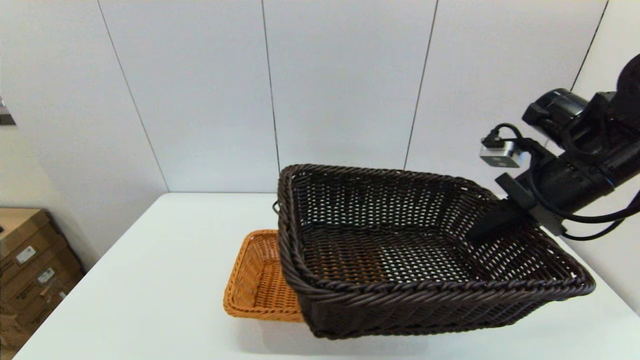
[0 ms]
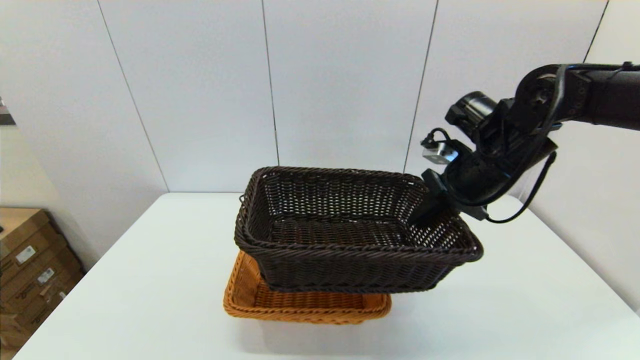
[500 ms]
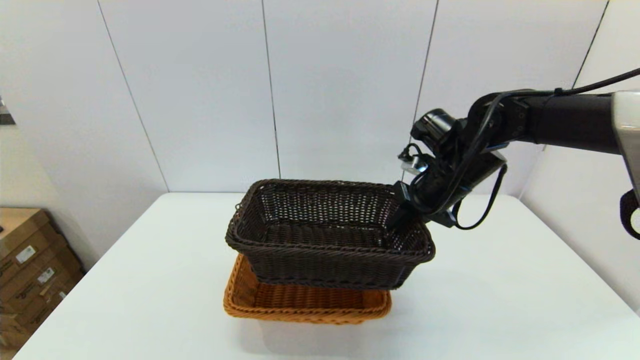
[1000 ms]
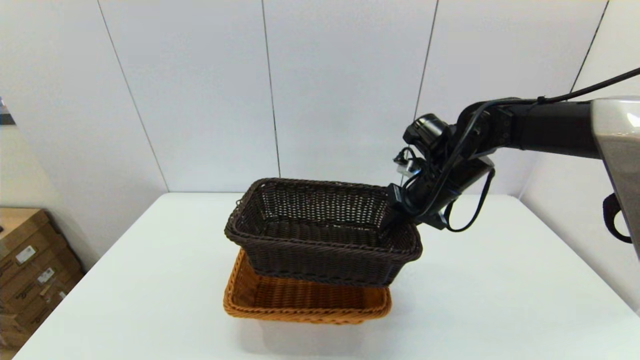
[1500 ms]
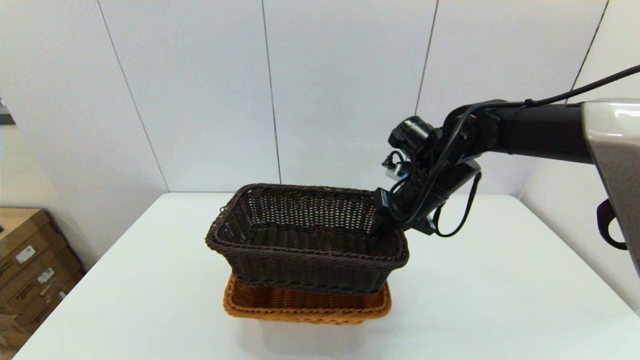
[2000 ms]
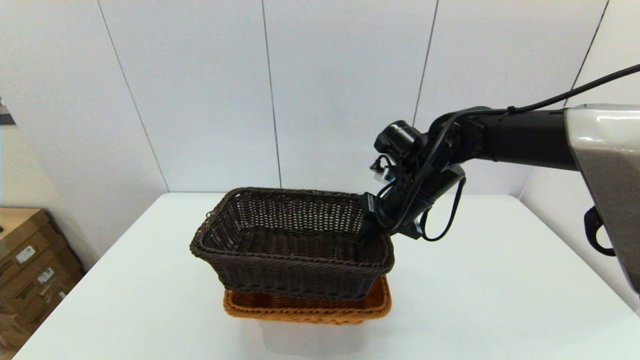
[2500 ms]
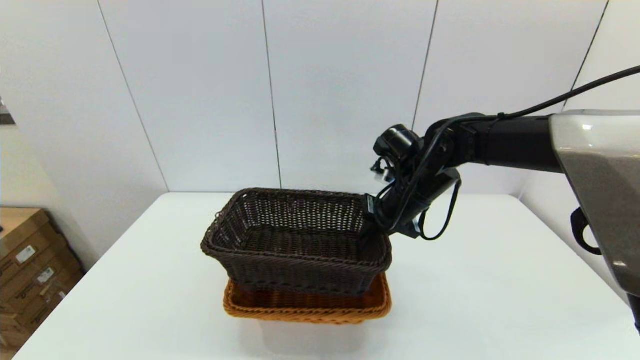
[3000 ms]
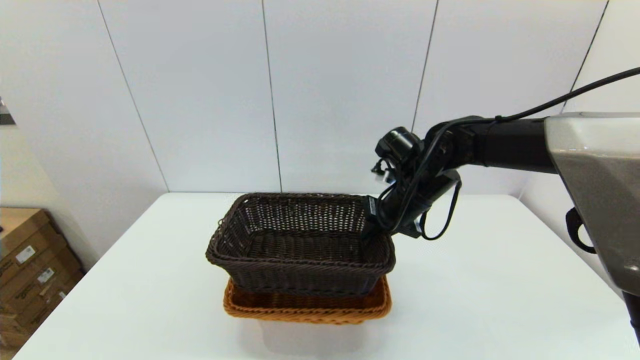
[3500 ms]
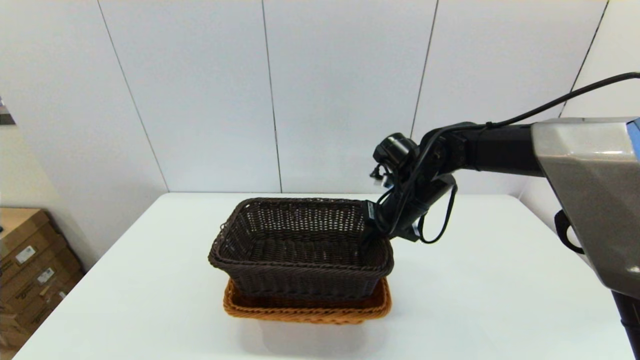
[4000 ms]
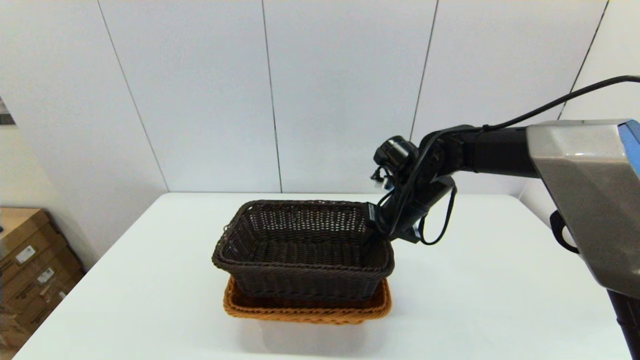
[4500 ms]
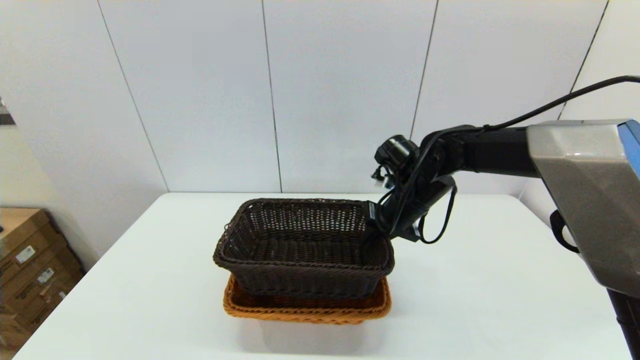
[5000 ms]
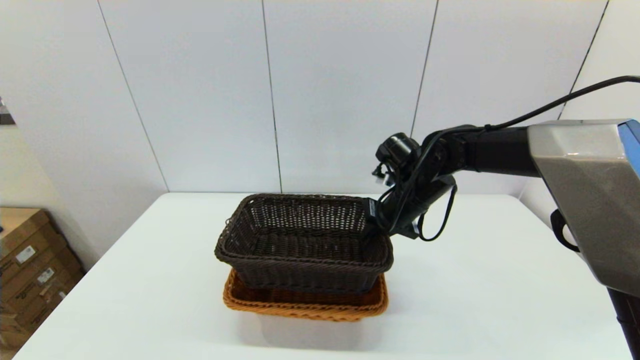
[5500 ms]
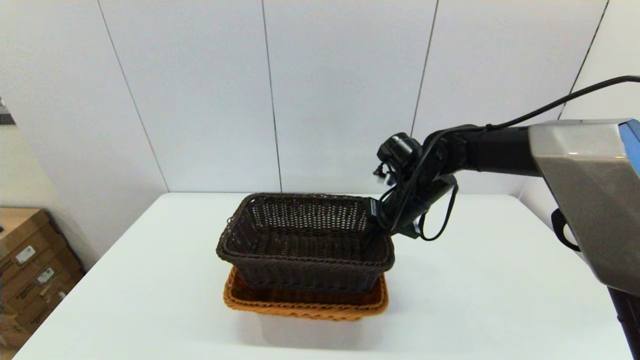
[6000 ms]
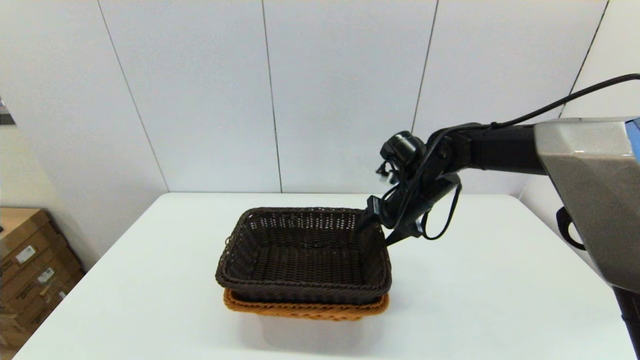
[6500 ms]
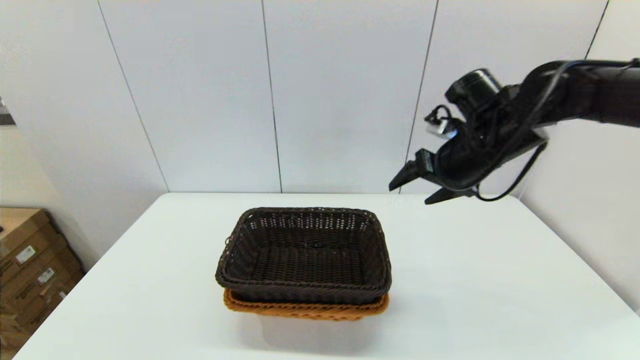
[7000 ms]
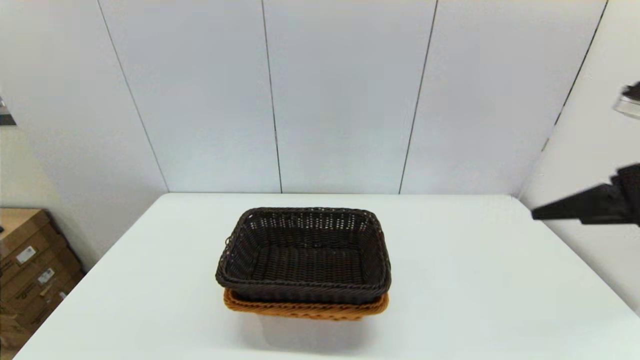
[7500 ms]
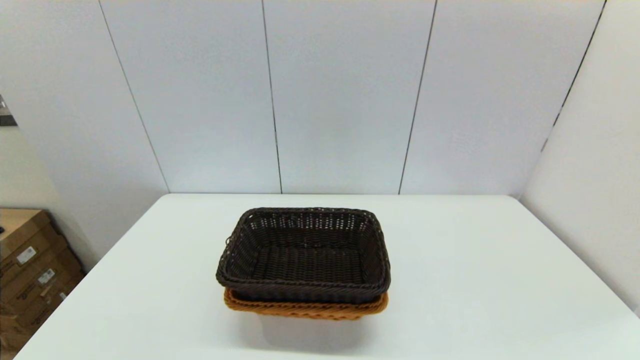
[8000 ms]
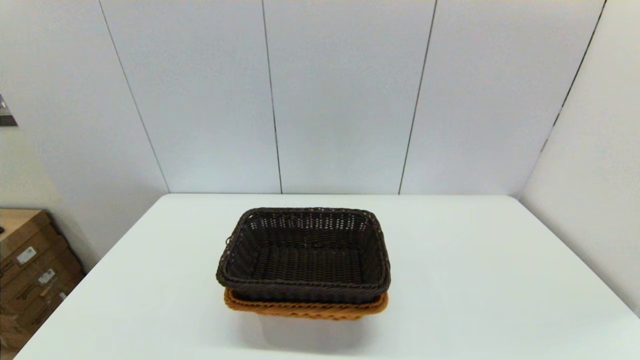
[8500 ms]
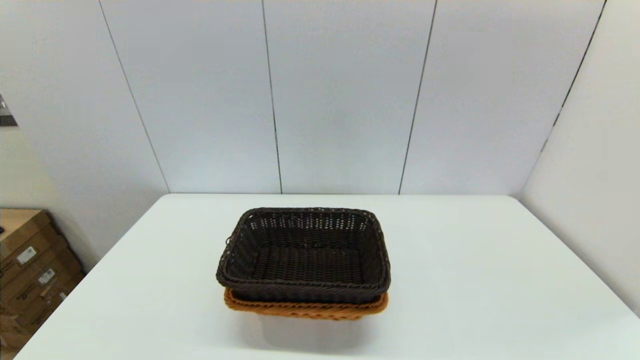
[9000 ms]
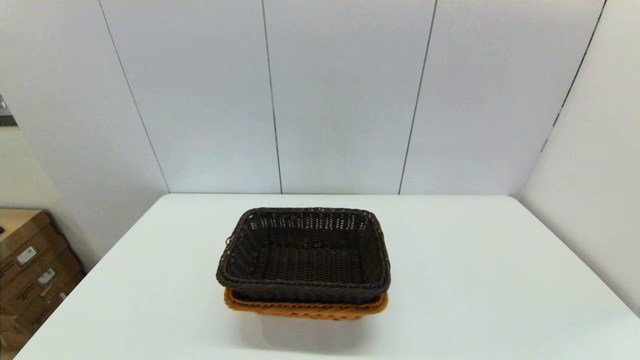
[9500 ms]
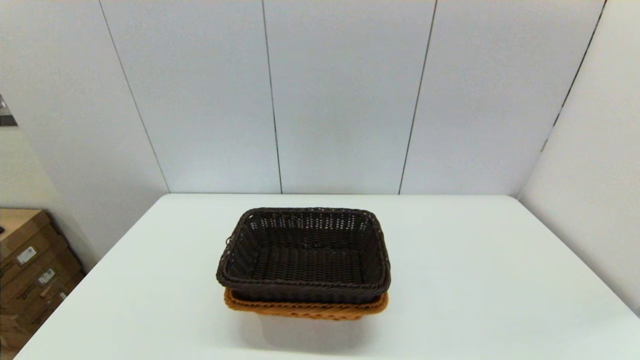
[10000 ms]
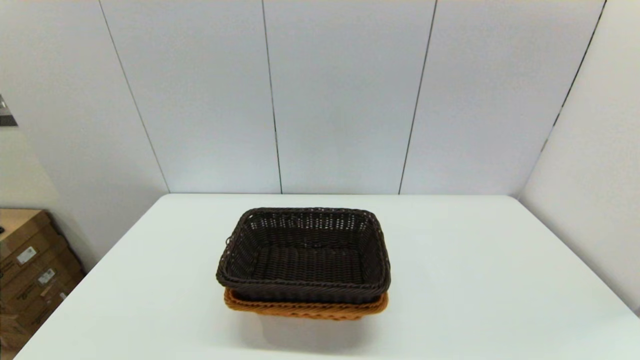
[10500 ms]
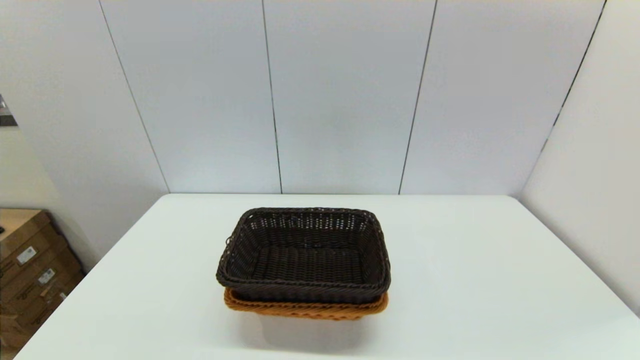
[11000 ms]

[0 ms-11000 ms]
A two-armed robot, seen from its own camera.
Task of the whole recording: stack a basket on top of another basket.
Step, 0 ms to 7000 ms: Place the dark basket into the light color basket with the right gripper.
0 ms to 2000 ms: The right gripper shifts about 15 cm to the left, forward and downward.
2000 ms to 5500 ms: There are only small adjustments of the grippers.
5500 ms to 7500 ms: The right gripper travels backward, upward and to the right by approximately 30 cm, and opens up.
7500 ms to 9000 ms: The right gripper heads backward and downward, covering some 25 cm.
